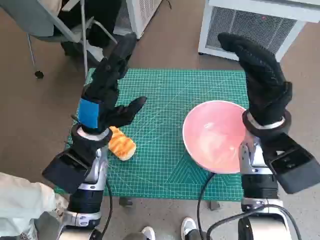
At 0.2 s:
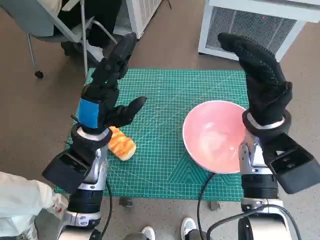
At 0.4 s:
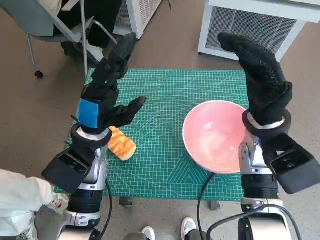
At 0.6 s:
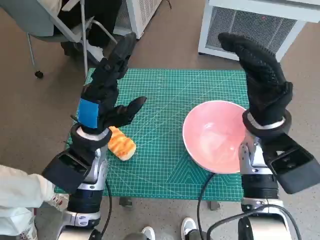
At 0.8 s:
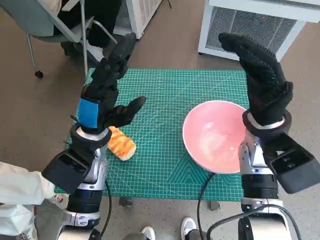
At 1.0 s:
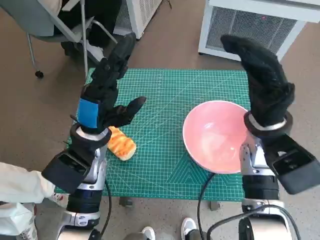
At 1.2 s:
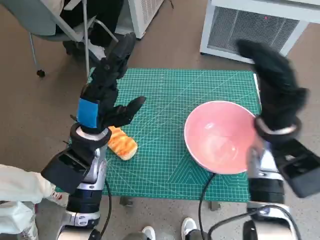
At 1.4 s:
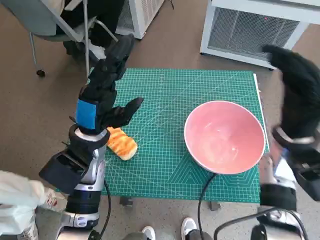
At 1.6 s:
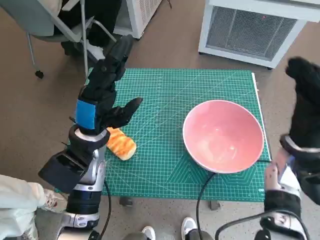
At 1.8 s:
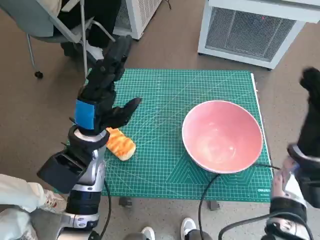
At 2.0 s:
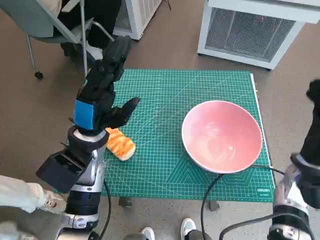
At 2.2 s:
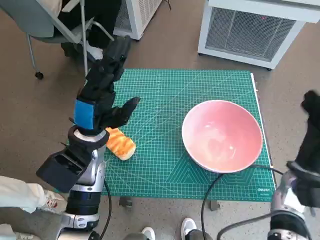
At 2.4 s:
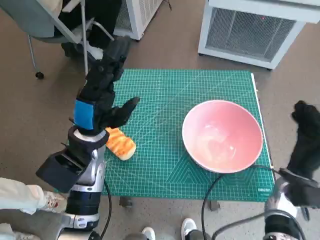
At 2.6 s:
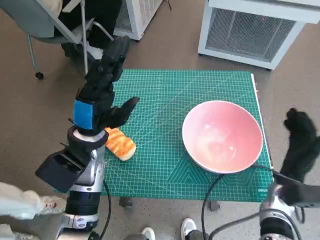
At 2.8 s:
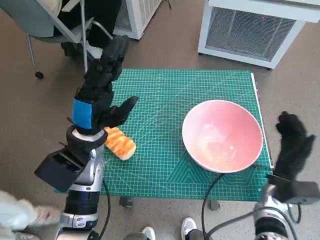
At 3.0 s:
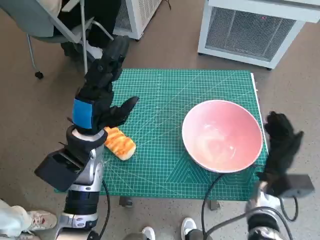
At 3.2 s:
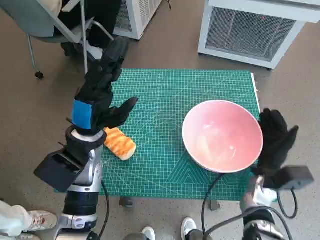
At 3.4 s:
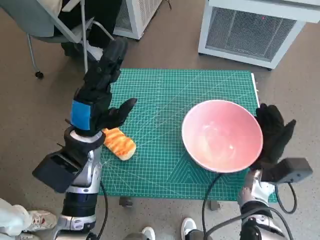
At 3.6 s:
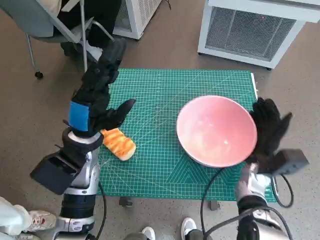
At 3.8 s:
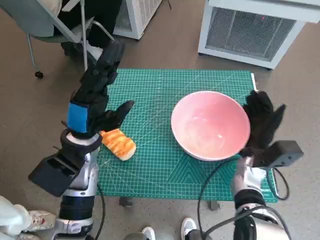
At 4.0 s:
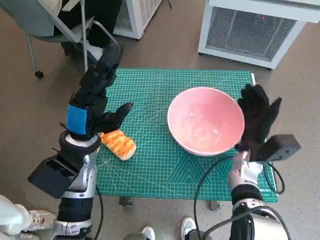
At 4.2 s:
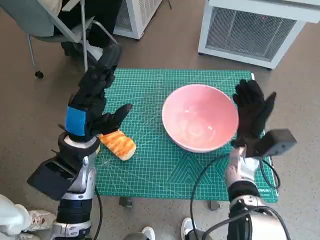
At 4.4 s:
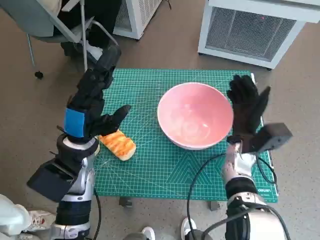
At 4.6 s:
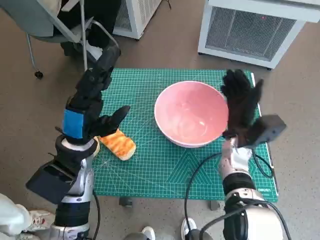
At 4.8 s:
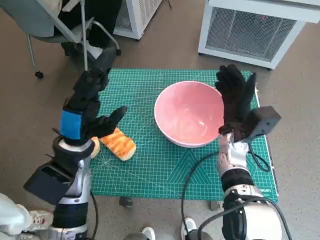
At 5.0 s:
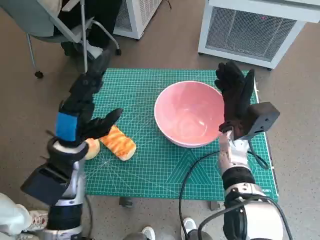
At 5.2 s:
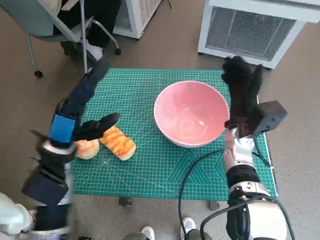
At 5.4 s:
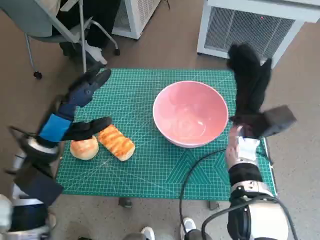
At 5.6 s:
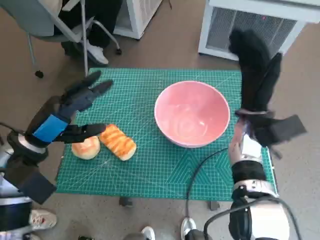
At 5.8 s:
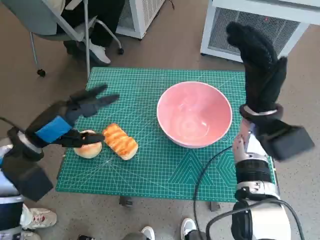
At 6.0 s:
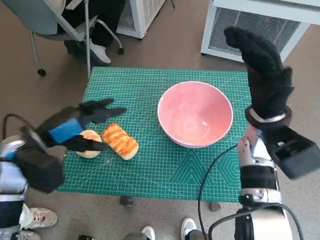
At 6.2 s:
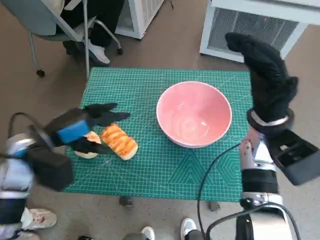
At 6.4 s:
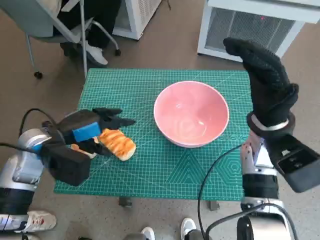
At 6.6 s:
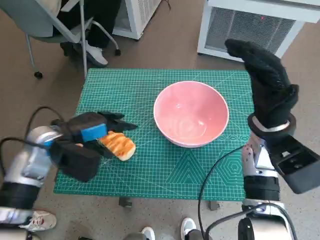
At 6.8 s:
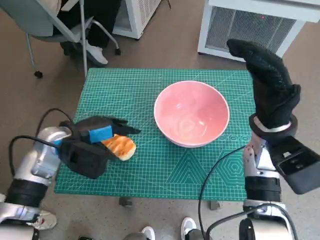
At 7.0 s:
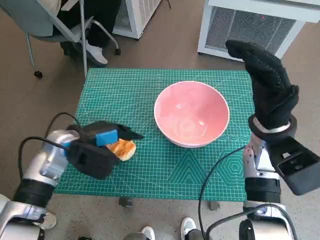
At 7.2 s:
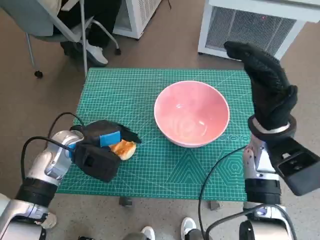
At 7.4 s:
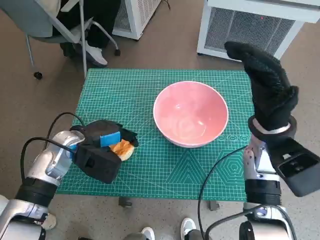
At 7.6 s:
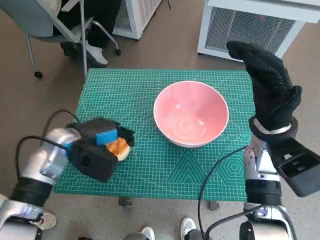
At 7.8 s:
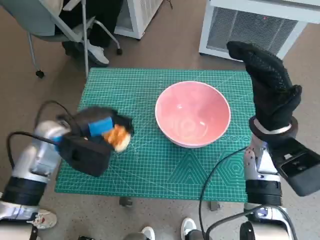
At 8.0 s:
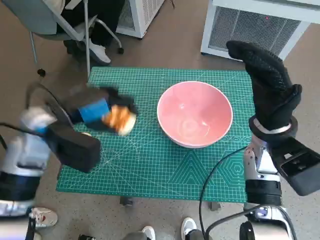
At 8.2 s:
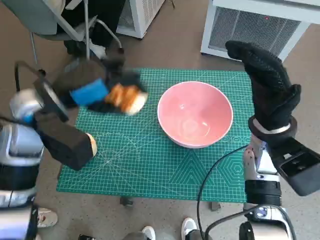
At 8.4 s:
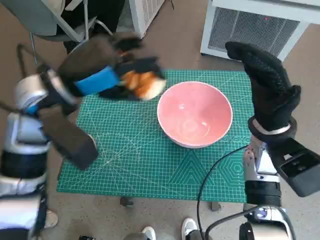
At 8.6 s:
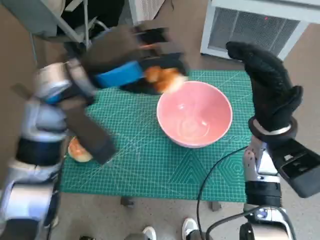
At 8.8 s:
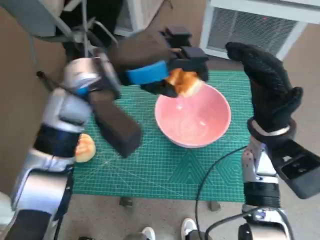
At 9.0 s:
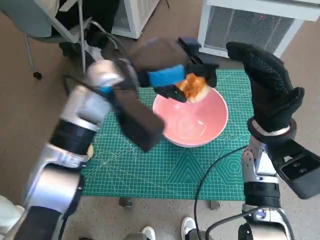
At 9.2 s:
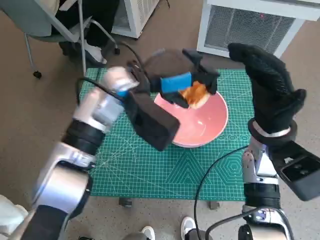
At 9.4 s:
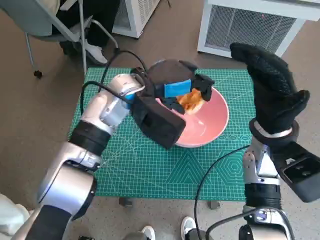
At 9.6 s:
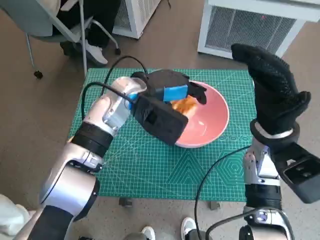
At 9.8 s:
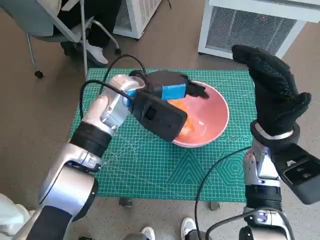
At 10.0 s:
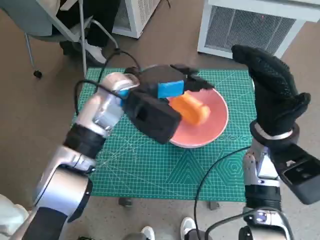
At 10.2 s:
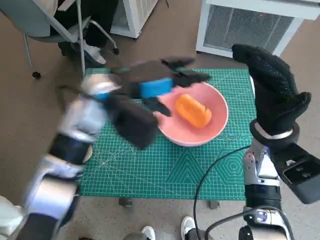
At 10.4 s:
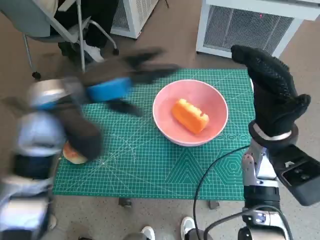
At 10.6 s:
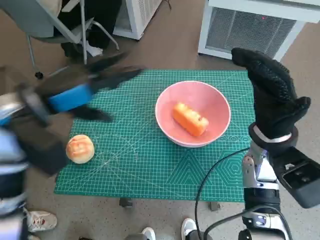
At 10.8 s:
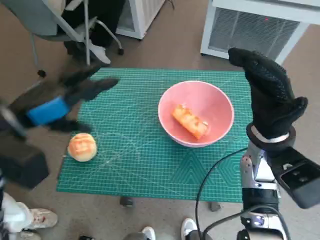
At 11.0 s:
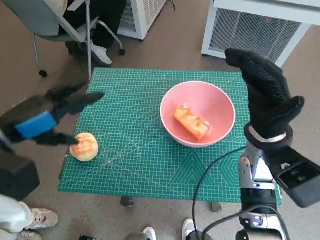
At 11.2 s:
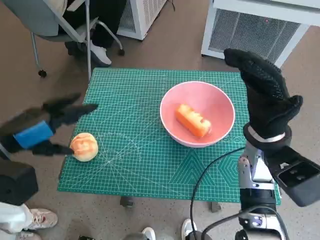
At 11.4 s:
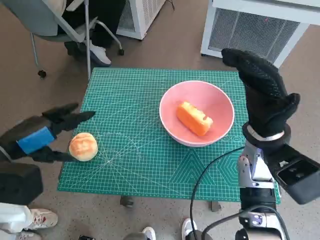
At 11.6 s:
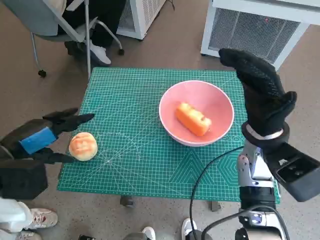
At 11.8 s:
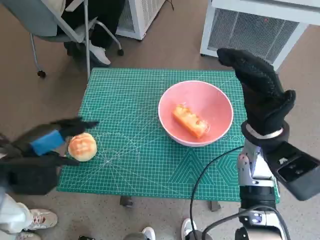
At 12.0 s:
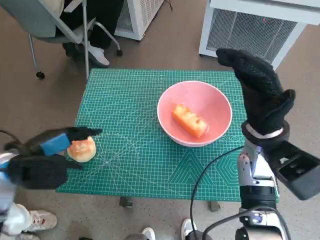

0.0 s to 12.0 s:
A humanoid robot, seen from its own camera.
Task of the whole recording: Push the bowl to the center of the table and put the bread into the bowl.
Step, 0.0 to 5.2 s: Move the pink bowl to the center of table with right hand.
Step, 5.4 to 7.4 s: Grasp the long bread with left hand.
Step, 7.6 to 10.0 s: Place the long bread in pink bowl with left hand.
1.6 to 3.0 s: The right hand heads downward, covering approximately 10 cm.
3.0 to 4.4 s: The right hand is displaced to the left, forward and upward by about 10 cm.
4.4 to 6.0 s: The left hand is displaced to the left by about 10 cm. Meanwhile the right hand travels upward by roughly 10 cm.
6.0 to 7.6 s: The left hand shifts approximately 5 cm to the right.
7.6 to 9.0 s: The left hand moves upward and to the right, approximately 20 cm.
9.0 to 10.4 s: The left hand goes about 5 cm to the left.
10.4 to 12.0 s: The left hand travels to the left, backward and downward by approximately 20 cm.

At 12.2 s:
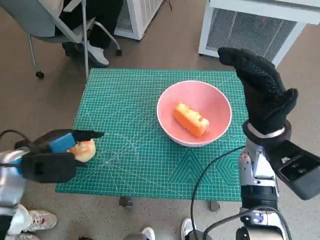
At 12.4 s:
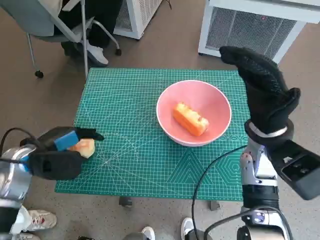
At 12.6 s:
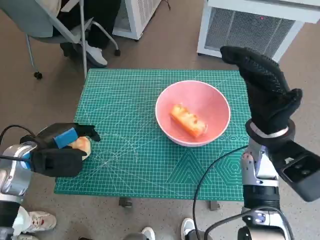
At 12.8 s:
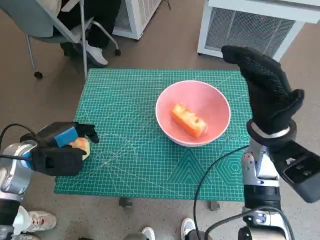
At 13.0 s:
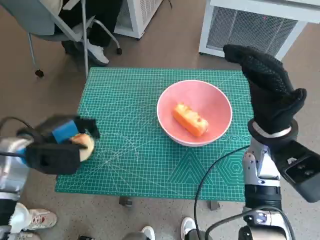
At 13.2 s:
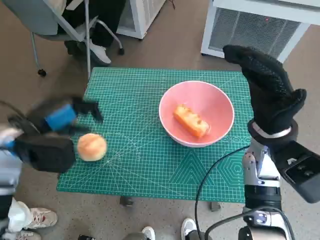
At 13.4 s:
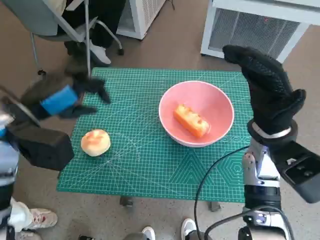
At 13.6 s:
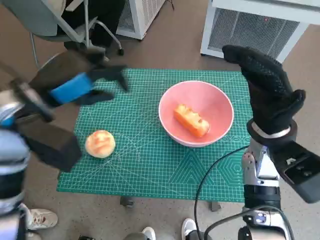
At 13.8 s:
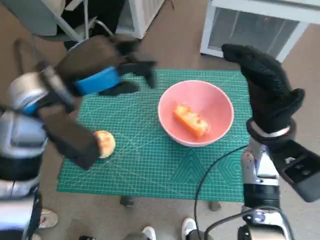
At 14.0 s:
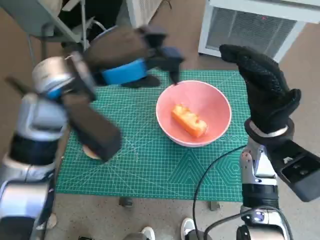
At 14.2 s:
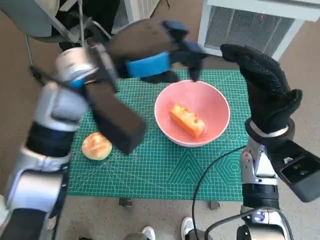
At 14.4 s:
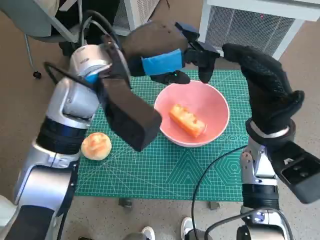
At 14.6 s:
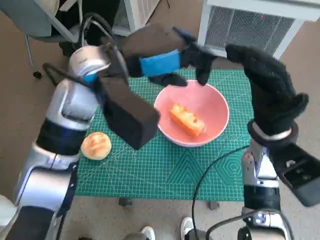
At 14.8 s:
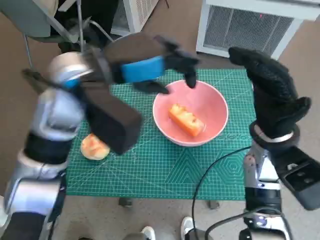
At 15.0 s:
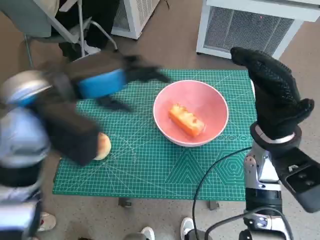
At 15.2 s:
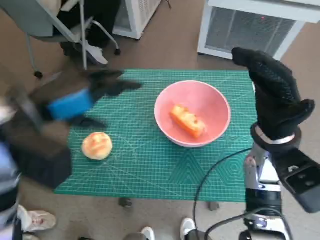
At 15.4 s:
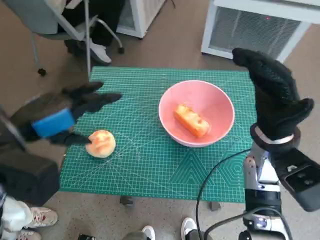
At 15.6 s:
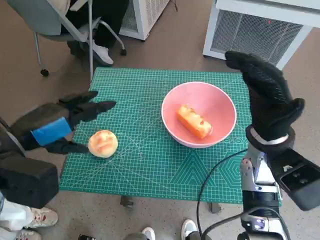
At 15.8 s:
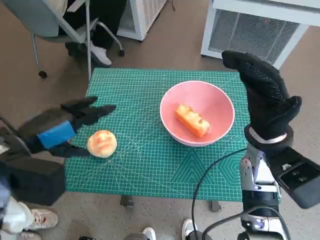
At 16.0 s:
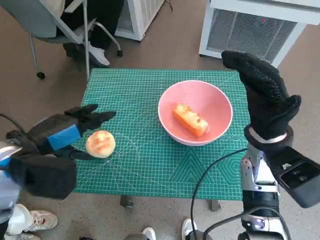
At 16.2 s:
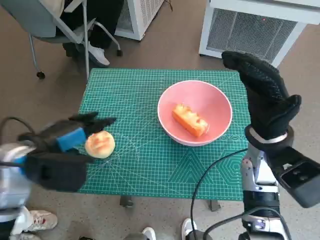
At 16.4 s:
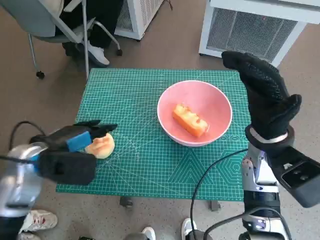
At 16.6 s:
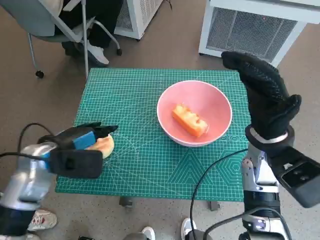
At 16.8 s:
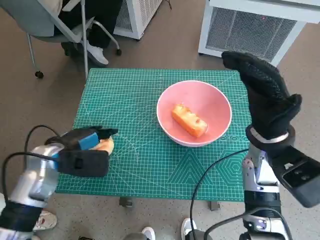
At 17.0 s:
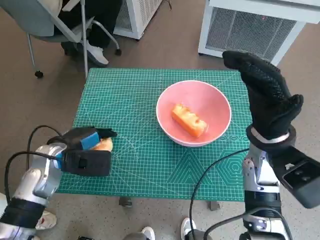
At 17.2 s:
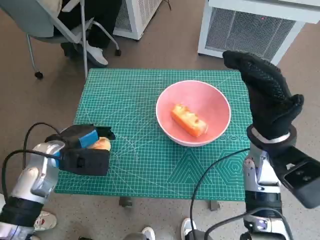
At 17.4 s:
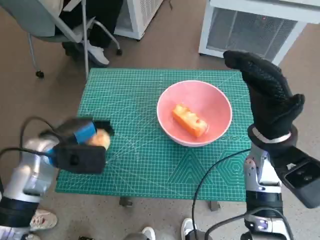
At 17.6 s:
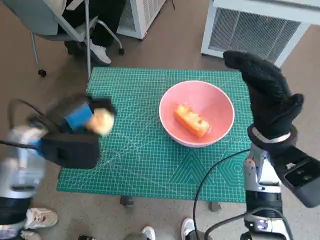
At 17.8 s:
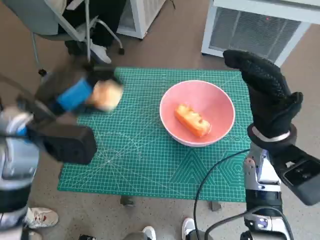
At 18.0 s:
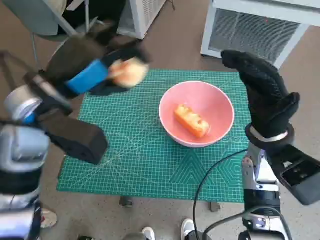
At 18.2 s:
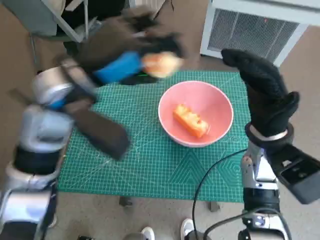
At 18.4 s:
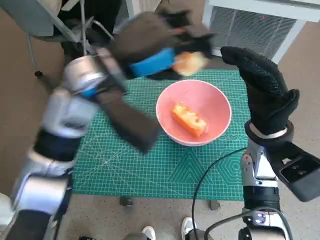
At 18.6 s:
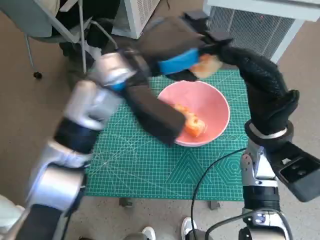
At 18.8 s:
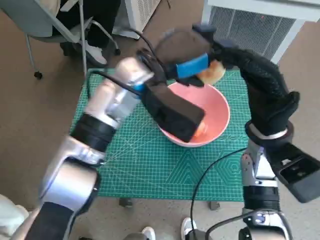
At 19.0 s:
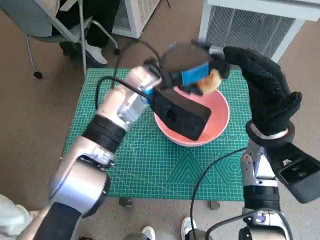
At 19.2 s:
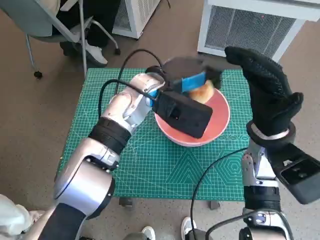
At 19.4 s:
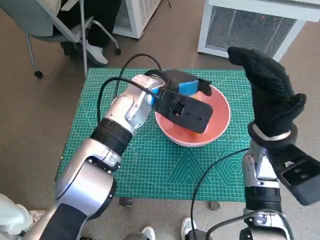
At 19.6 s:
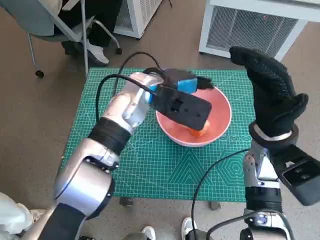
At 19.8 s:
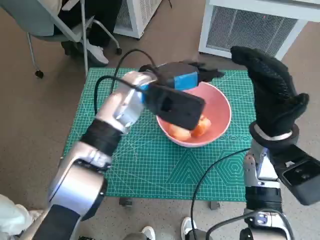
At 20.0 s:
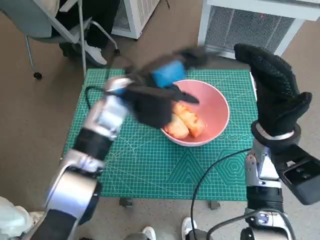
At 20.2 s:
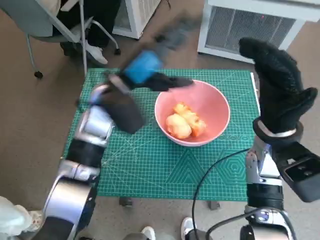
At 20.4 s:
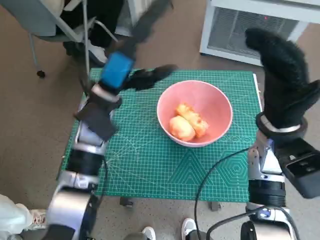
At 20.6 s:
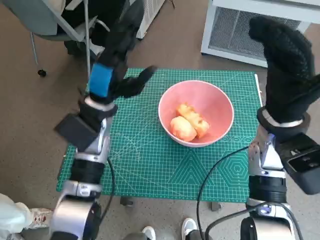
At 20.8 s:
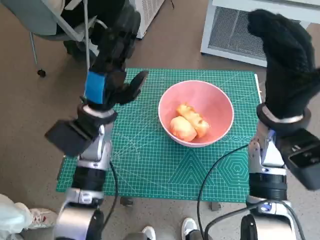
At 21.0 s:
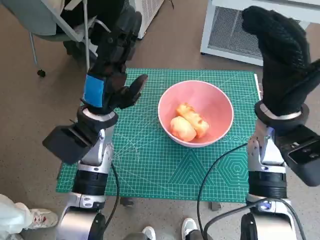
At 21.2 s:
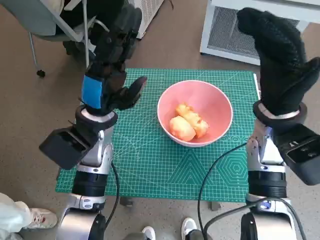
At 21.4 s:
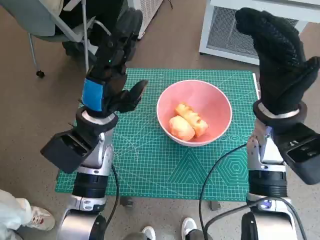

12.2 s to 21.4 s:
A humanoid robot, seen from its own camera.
Task of the whole recording: Push the bowl to the center of the table and put the bread into the bowl.
Step, 12.2 to 17.2 s: Grasp the round bread with left hand.
Step, 17.4 to 19.8 s: Place the round bread in pink bowl with left hand.
12.2 to 13.8 s: The left hand goes approximately 15 cm upward and to the right.
13.8 to 15.2 s: The left hand reaches roughly 10 cm to the right, then returns.
15.2 to 16.8 s: The left hand moves downward, approximately 15 cm.
16.8 to 18.4 s: The left hand moves upward and to the right, about 20 cm.
18.4 to 19.8 s: The left hand shifts roughly 10 cm downward and to the right.
19.8 to 21.4 s: The left hand is displaced to the left and backward by some 10 cm.
